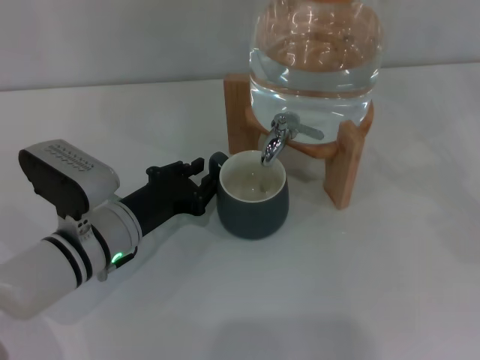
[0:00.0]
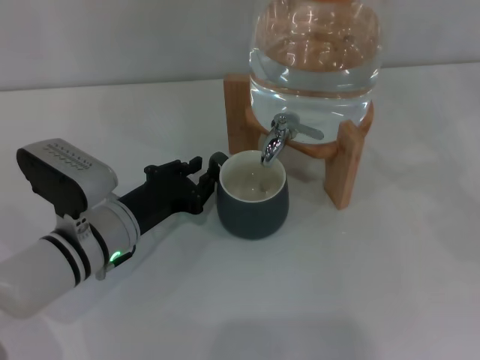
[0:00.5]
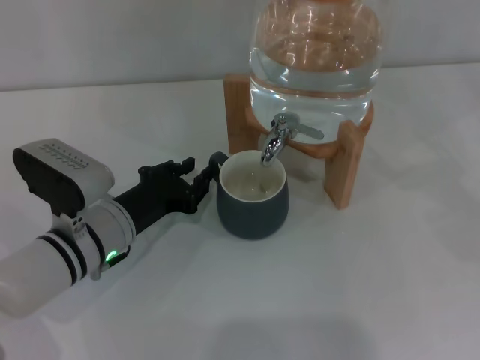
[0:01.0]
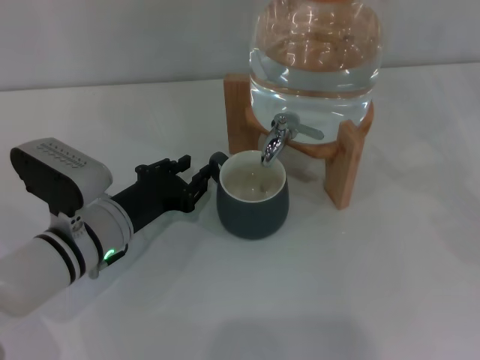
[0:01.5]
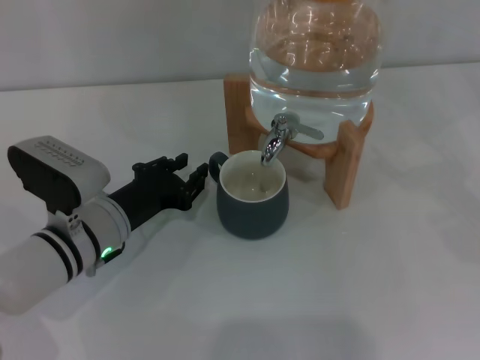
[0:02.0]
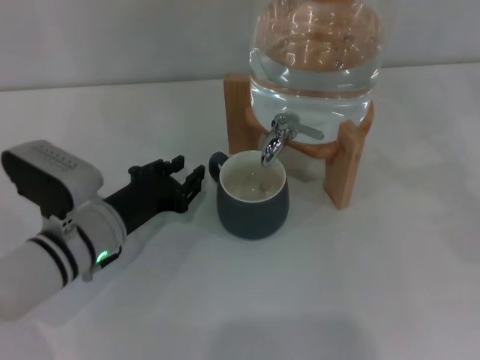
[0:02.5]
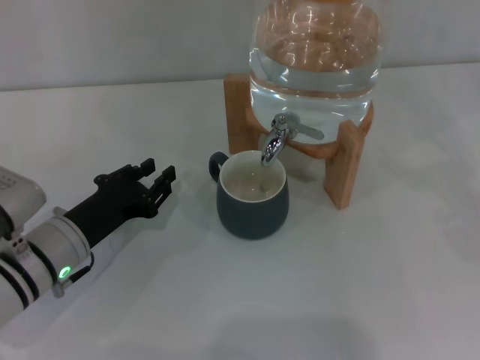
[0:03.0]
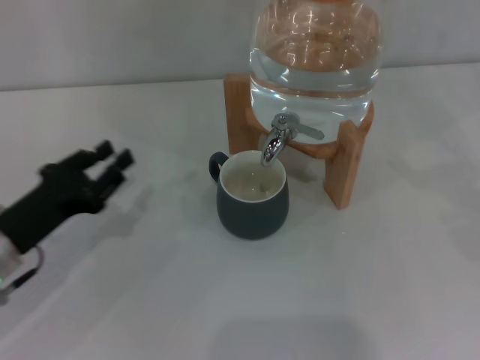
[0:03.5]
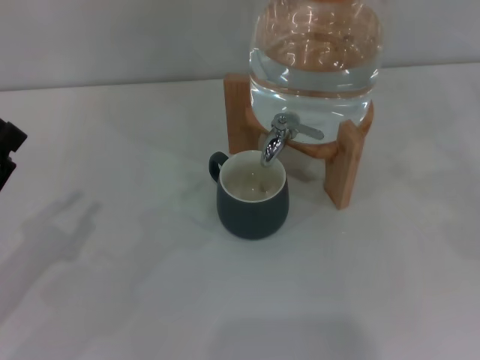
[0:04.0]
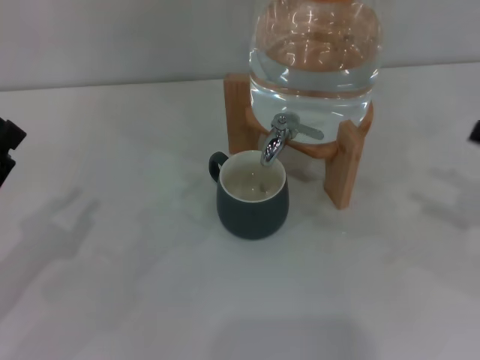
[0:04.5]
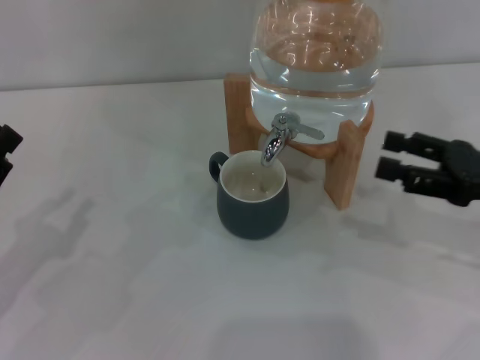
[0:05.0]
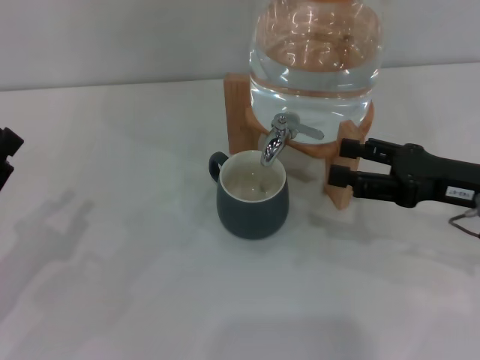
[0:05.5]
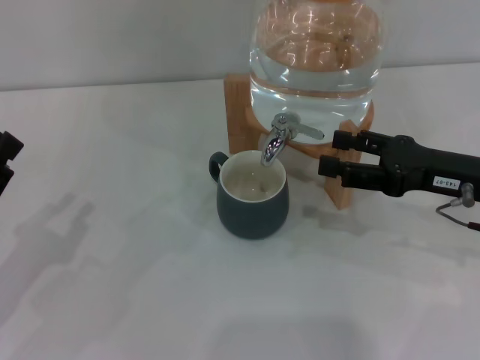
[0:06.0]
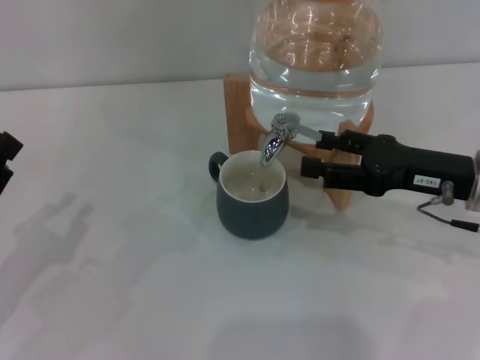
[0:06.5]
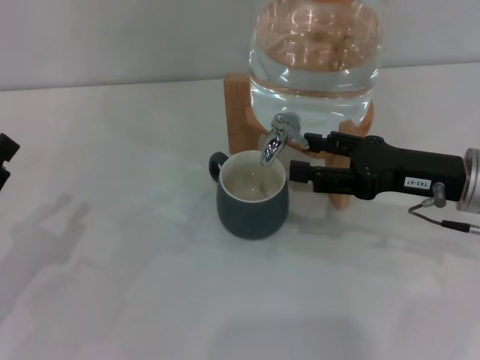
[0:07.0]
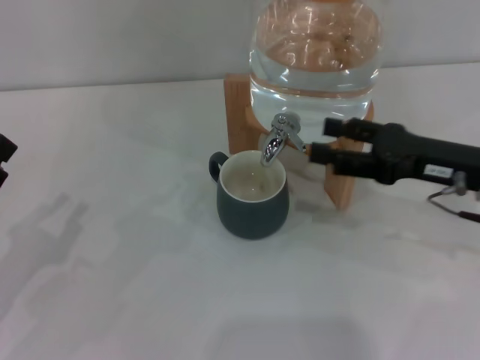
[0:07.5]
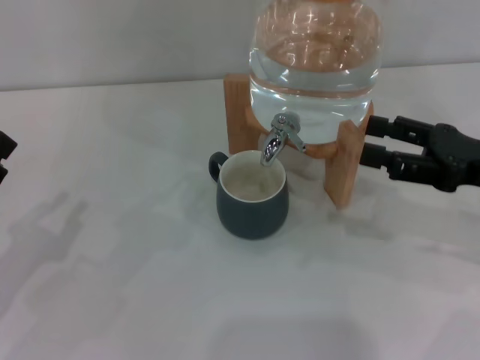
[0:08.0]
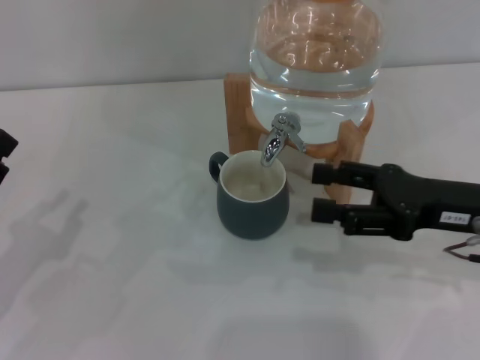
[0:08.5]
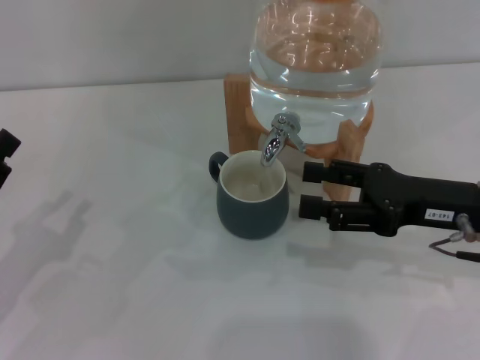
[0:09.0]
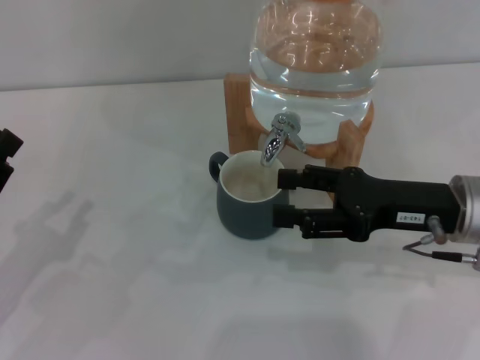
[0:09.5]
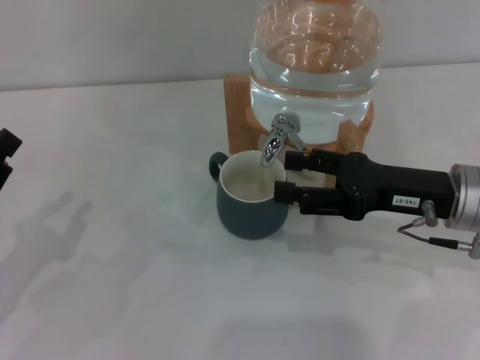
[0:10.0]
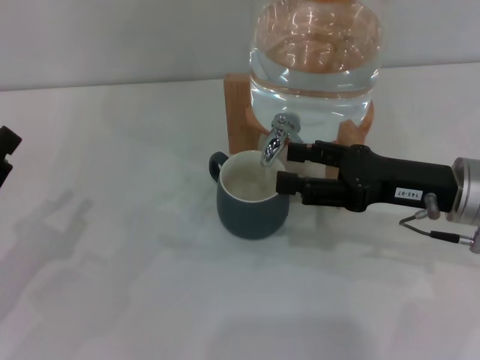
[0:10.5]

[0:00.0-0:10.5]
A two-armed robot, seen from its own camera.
Task of the whole recording: the left gripper pick up the black cup and place it horizontally under the faucet, the right gripper turn on the faucet to fill the cup, and then turn off the faucet.
Step, 0:00.0 to 0:02.5: Move the cup beneath the water dispenser nozzle with the left gripper.
Step, 0:03.0 to 0:09.5: Open the dispenser valve and fill the cup with water with the right gripper.
0:00.0 to 0:02.0: The two grippers keep their place.
0:02.0 to 0:04.0: The left gripper goes about 20 cm to the left and backward.
0:04.0 to 0:06.5: The right gripper heads to the left, covering approximately 20 cm.
0:06.5 to 0:10.5: The grippers make only small movements.

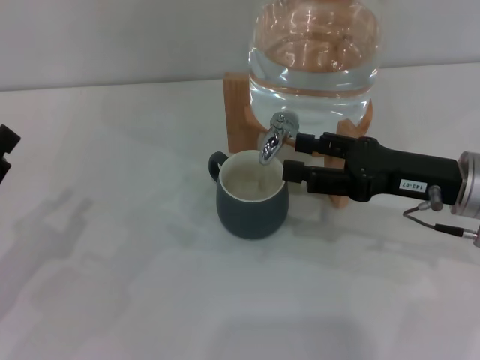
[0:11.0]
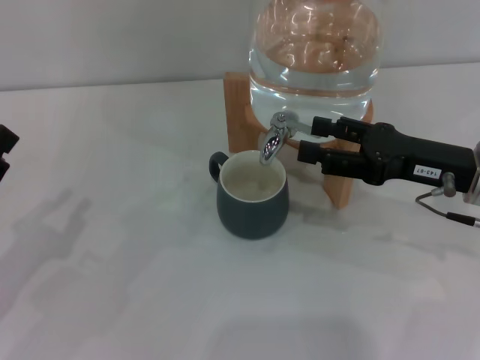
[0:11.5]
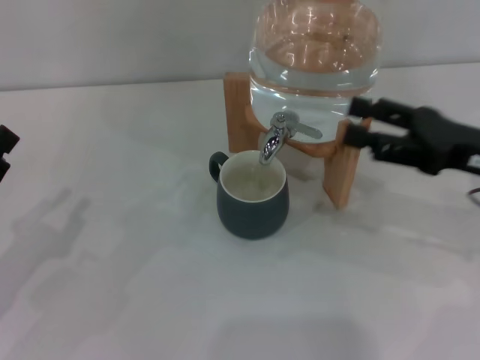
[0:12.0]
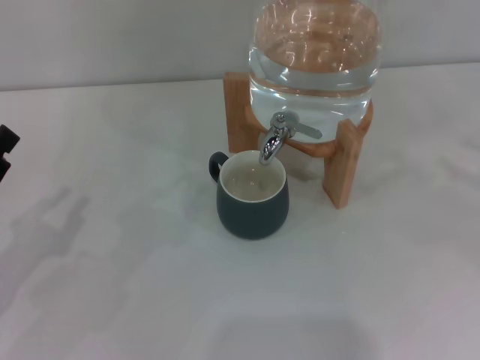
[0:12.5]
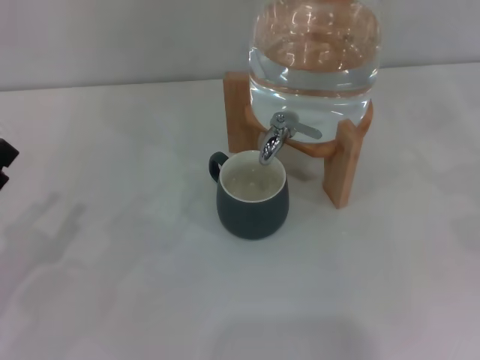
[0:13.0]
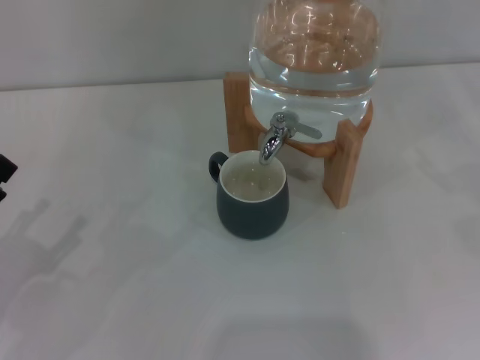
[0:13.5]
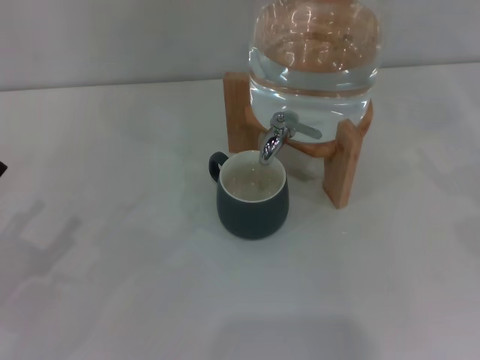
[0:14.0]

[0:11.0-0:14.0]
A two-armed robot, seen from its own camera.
Task of the whole recording: the left gripper pick up the black cup and place it horizontally under the faucet, the right gripper turn on the faucet to fill the cup, and then turn off the faucet.
0:11.0 to 0:12.5: The right gripper is displaced to the right by some 20 cm.

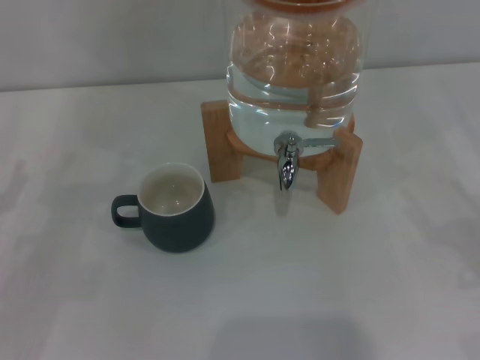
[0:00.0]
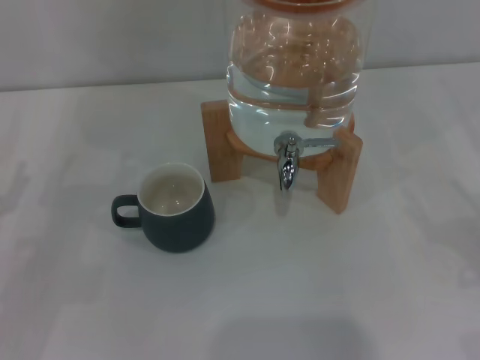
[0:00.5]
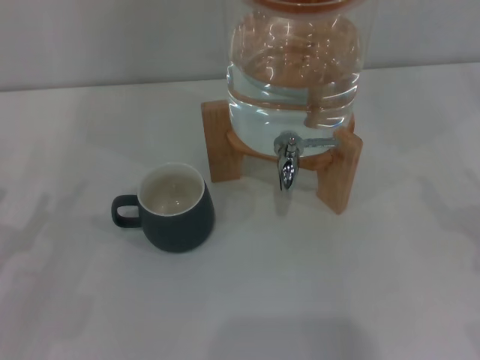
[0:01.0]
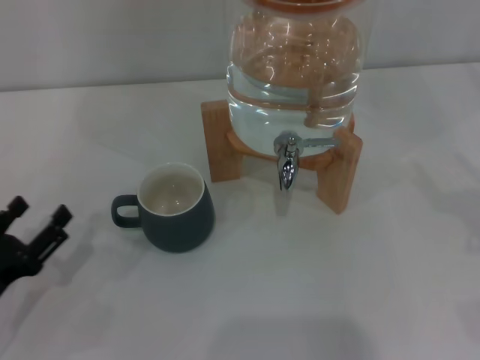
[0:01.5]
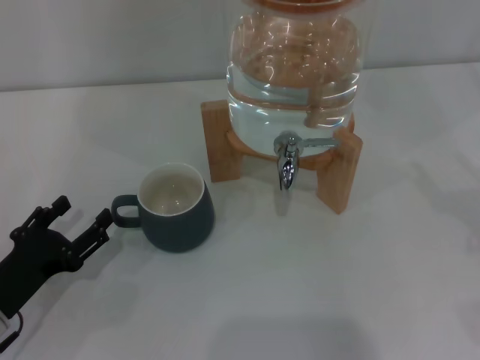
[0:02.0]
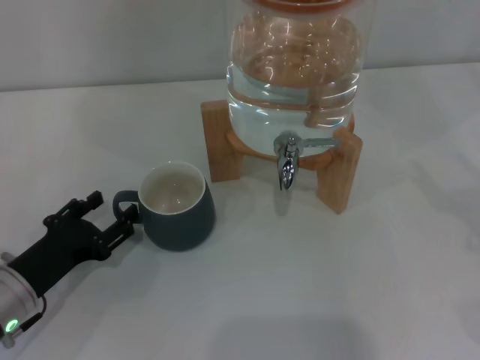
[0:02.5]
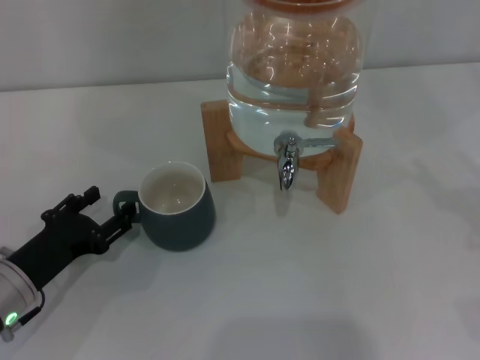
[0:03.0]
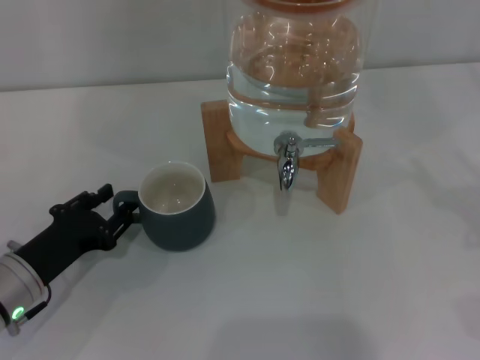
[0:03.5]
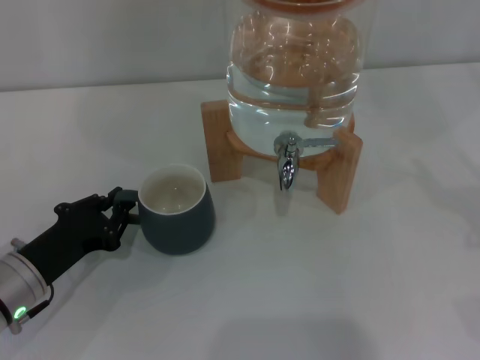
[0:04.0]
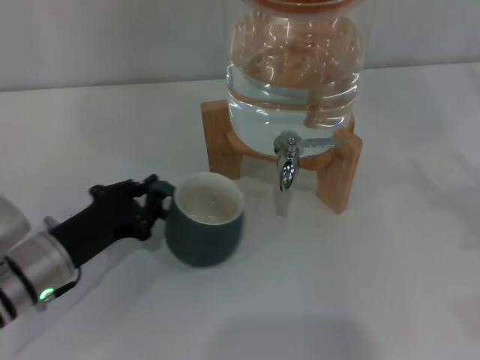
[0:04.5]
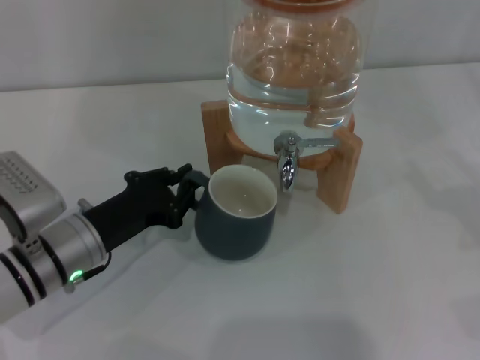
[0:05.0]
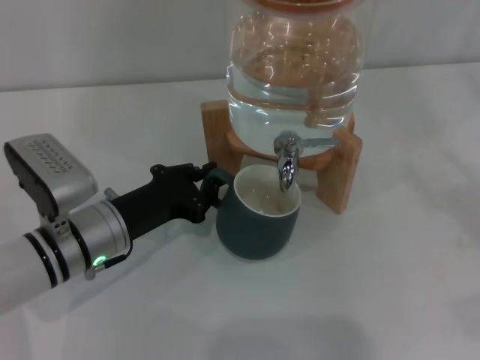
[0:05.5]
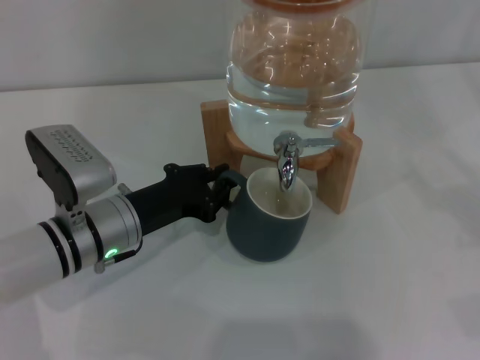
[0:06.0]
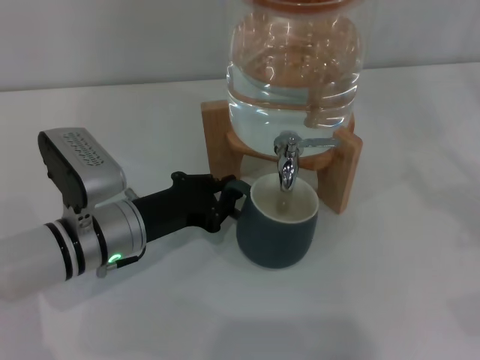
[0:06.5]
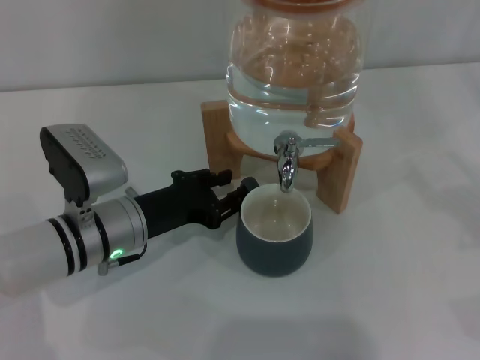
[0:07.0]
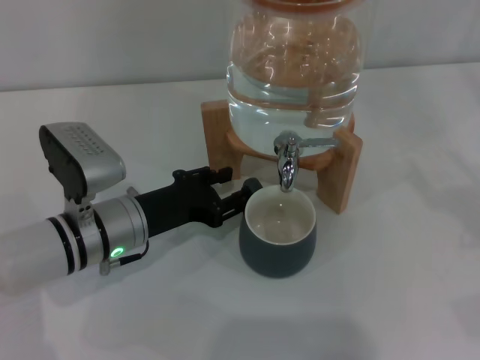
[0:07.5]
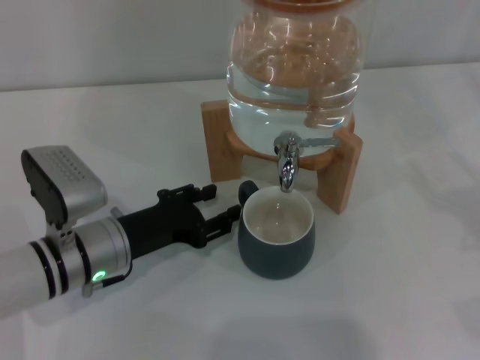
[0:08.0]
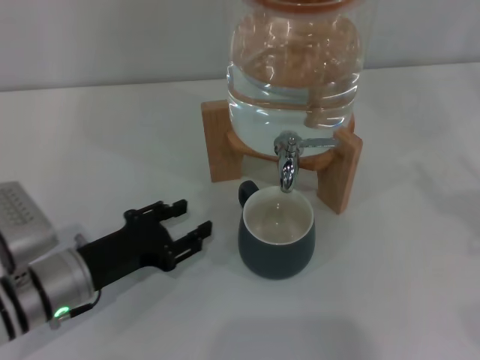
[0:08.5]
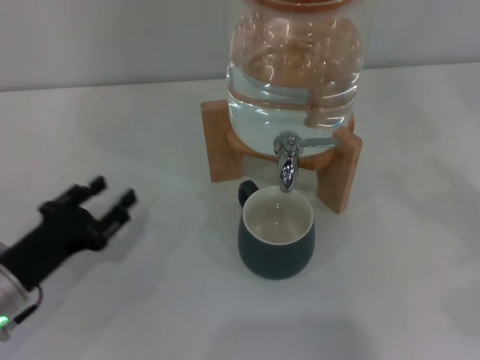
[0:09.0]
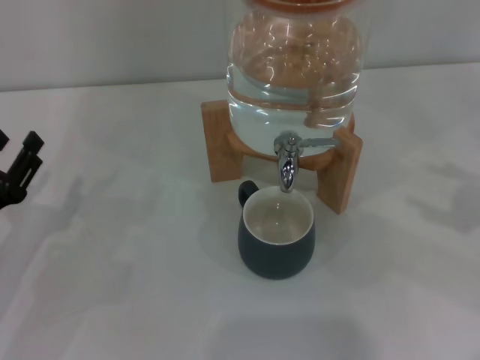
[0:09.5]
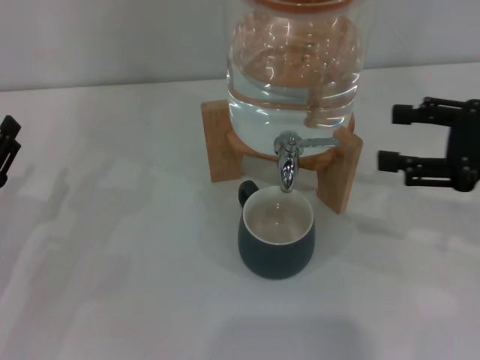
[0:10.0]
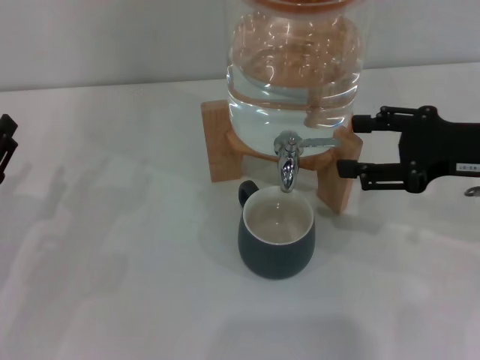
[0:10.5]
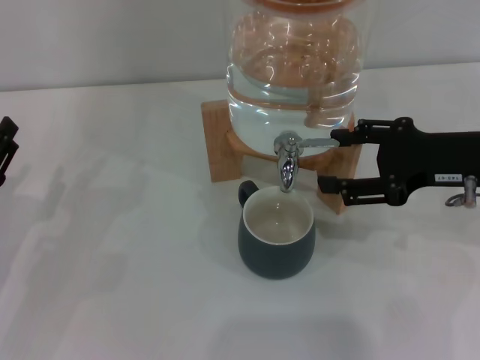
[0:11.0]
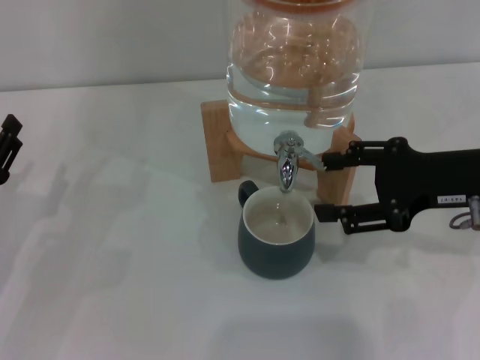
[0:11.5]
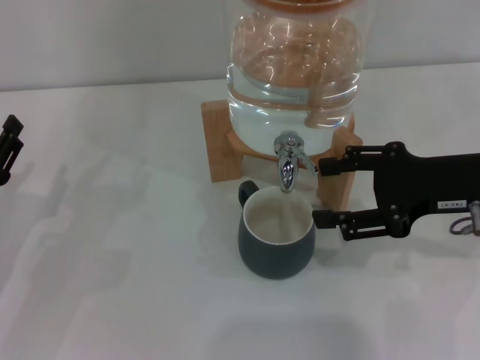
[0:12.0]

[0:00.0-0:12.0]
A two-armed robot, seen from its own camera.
Task of the whole recording: the left gripper pick up the black cup and place it horizontally under the faucet, the right gripper turn on the faucet to fill the cup, and then turn off the faucet.
Step, 0:00.0 to 0:08.0: Move the cup beneath the water dispenser nozzle with the left gripper.
Step, 0:08.5 to 0:12.0: Open the dispenser valve and fill the cup with water with the right gripper.
0:00.0 to 0:02.0: The left gripper moves to the right and downward, roughly 10 cm.
0:02.0 to 0:04.0: The left gripper closes up.
0:04.0 to 0:06.0: The left gripper is displaced to the right and forward by about 10 cm.
0:06.0 to 0:08.0: The left gripper opens its fingers.
0:08.0 to 0:10.0: The left gripper travels to the left by some 15 cm. Meanwhile the right gripper travels to the left, forward and upward by about 15 cm.
0:10.0 to 0:12.0: The right gripper goes roughly 5 cm to the left.
